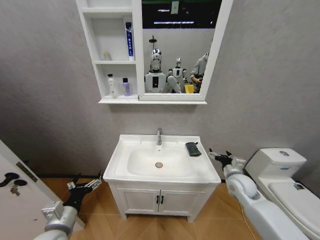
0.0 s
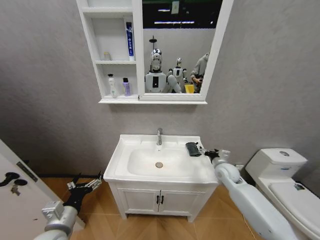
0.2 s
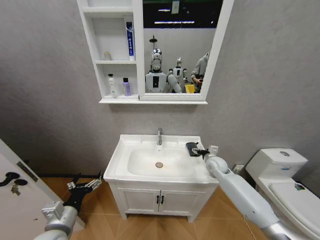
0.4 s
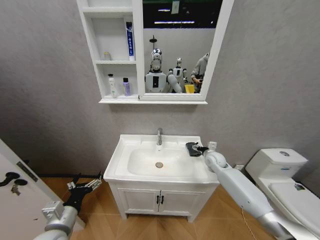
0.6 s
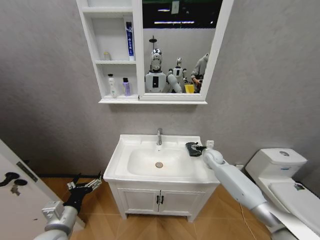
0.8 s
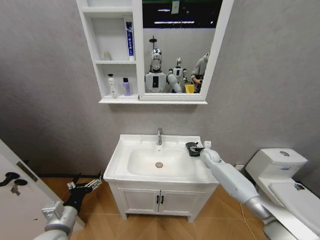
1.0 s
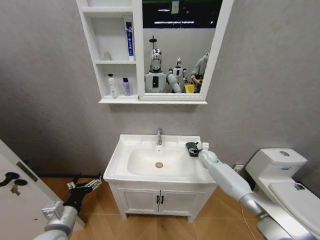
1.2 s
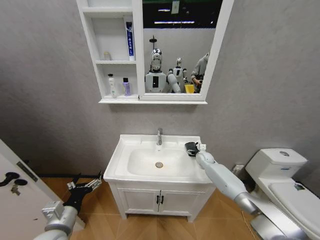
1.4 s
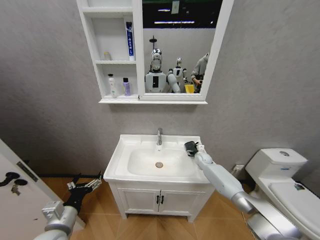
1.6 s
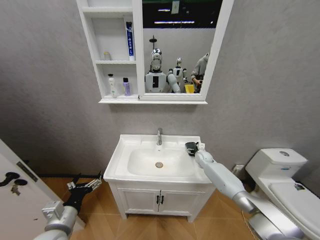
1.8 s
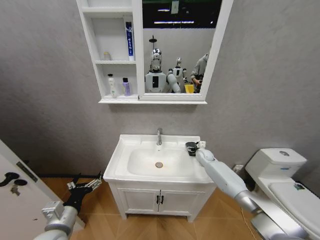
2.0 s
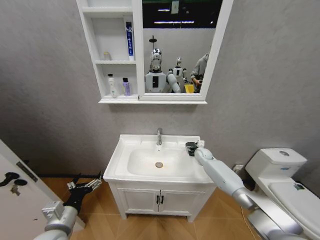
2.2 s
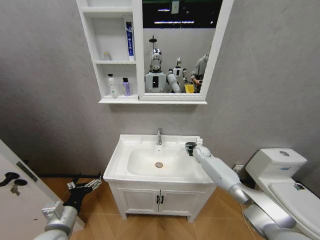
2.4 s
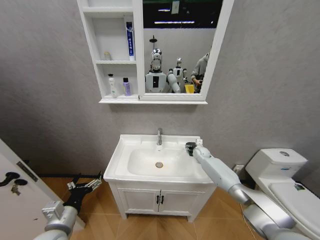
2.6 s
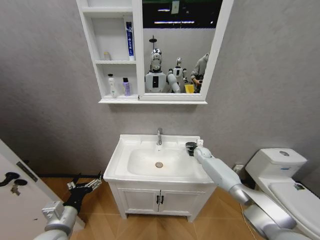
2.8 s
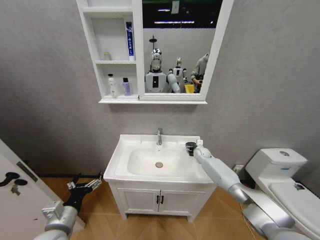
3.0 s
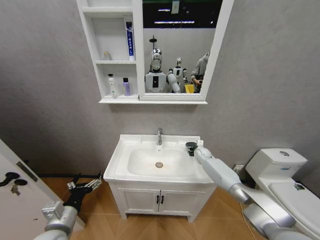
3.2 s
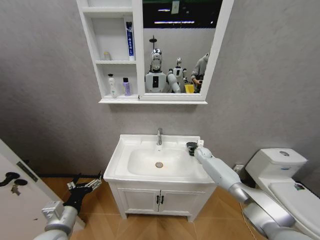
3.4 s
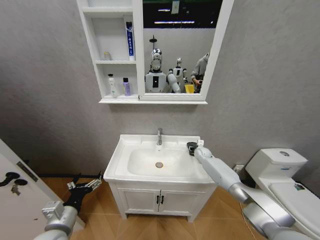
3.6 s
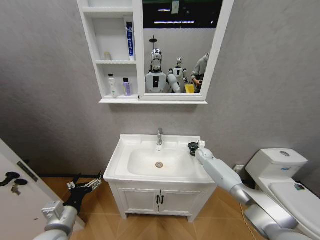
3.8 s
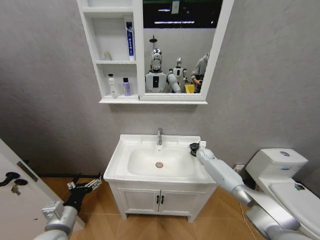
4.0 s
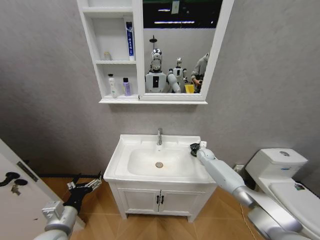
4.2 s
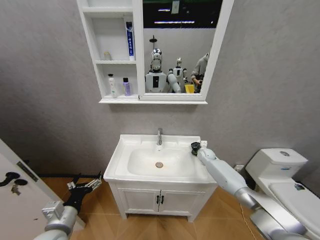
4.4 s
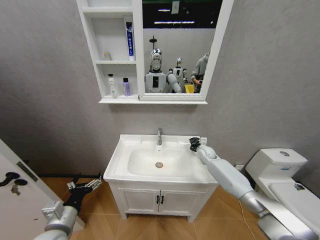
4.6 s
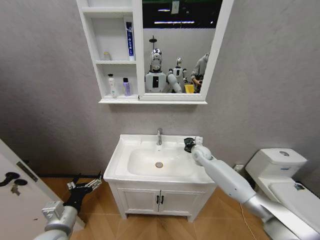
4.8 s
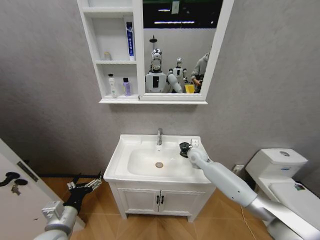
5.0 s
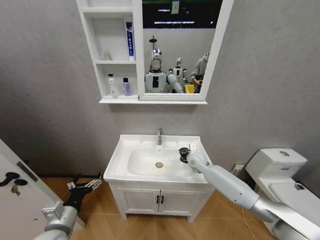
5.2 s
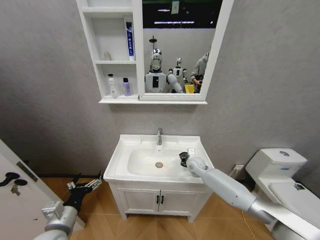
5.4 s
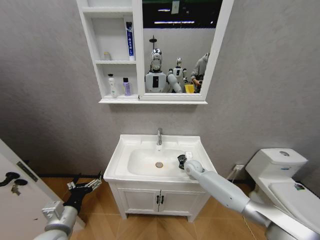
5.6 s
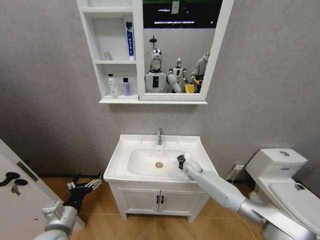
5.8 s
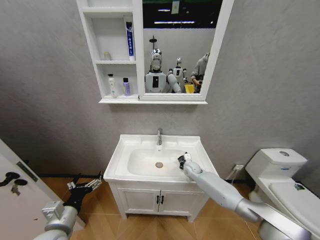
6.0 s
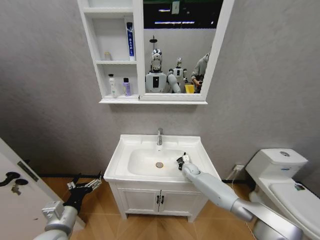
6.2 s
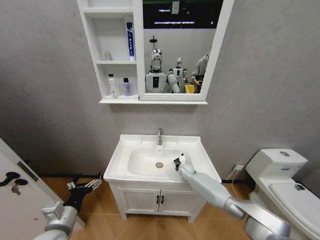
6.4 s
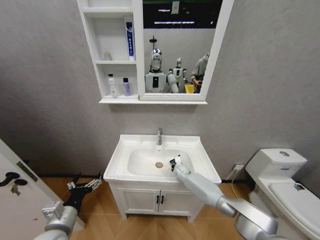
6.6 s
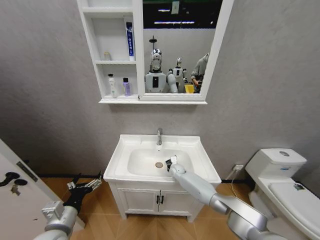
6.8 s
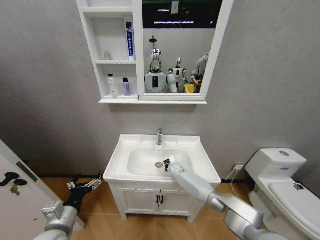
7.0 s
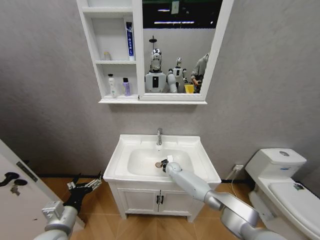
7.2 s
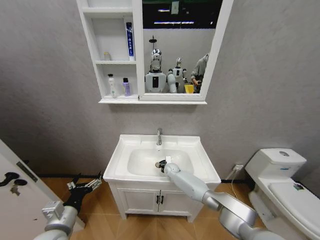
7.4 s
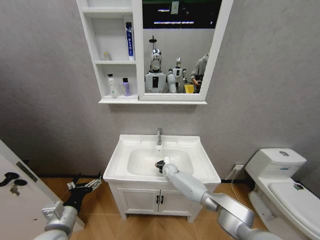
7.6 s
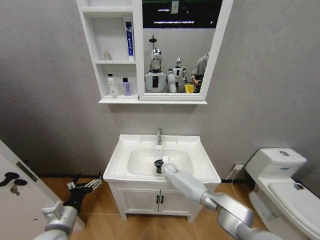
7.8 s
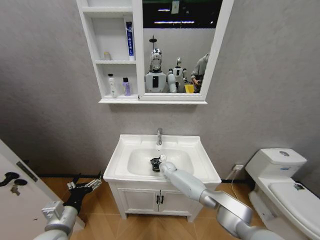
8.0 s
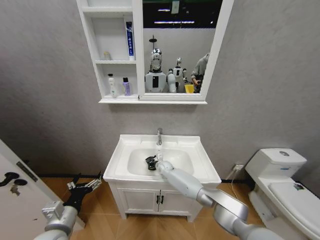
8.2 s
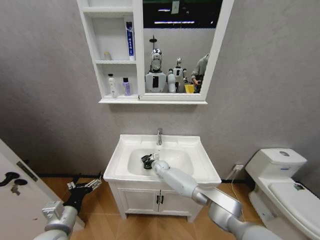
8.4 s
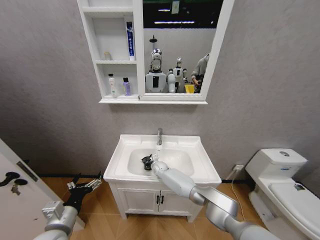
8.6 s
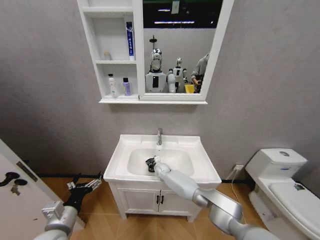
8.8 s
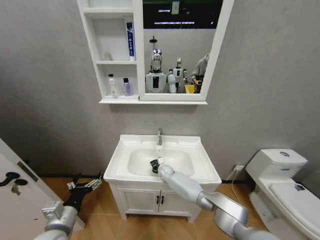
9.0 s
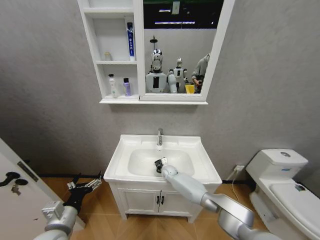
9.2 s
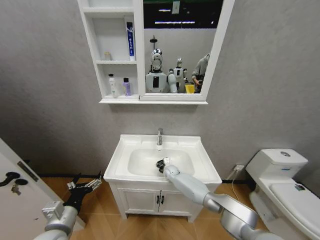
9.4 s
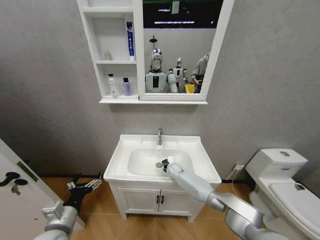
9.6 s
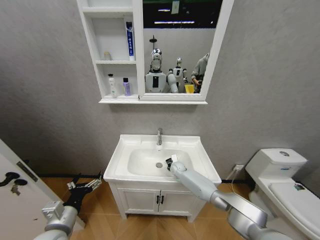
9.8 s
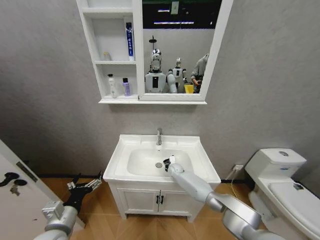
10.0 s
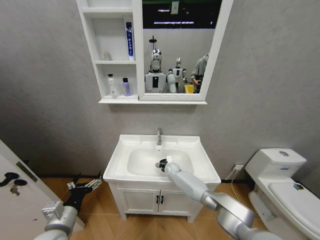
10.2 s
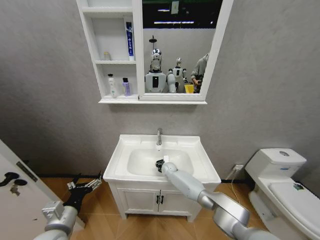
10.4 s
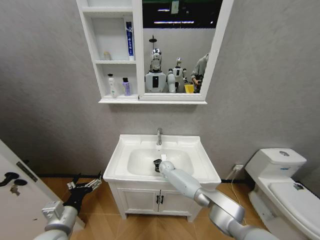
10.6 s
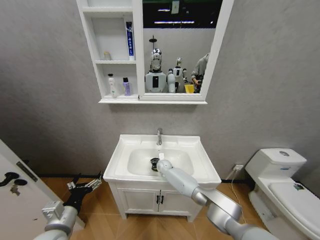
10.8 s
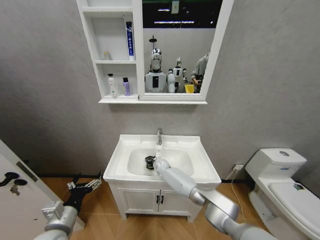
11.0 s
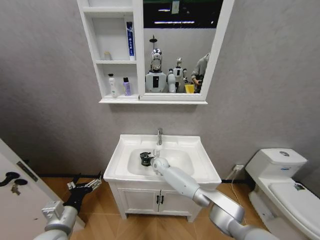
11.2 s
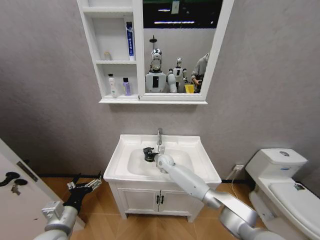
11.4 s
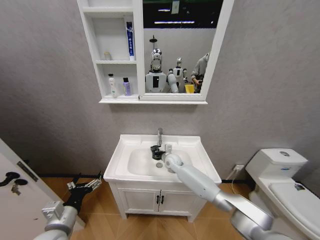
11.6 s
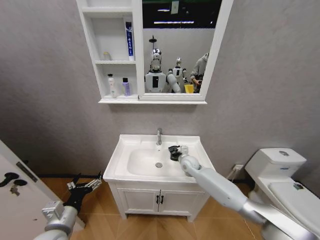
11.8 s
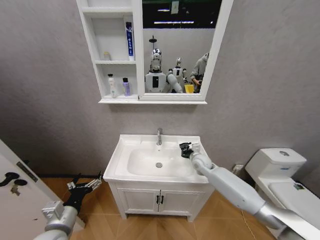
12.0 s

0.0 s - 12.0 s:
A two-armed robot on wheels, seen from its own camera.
Task of the whole recording: Move facial cleanser and shampoo from washbasin to cabinet, then wipe washbasin with towel.
0.0 s - 1.6 s: The right gripper goes some 25 cm forward and downward.
1.6 s - 3.0 s: The grippers stay close to where they were, moving slightly.
3.0 s - 4.4 s: The right gripper closes.
4.4 s - 6.0 s: The right gripper is displaced to the left, backward and downward by some 15 cm.
6.0 s - 7.6 s: The right gripper goes approximately 15 cm to the left and downward.
9.0 s - 10.4 s: The right gripper reaches about 10 cm to the right, then returns.
10.4 s - 12.0 s: The right gripper travels to the right and upward by about 20 cm.

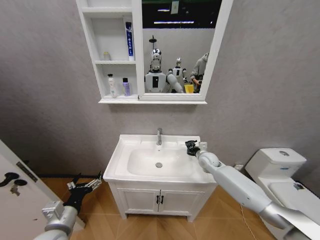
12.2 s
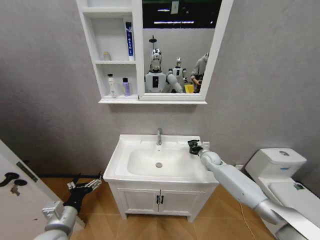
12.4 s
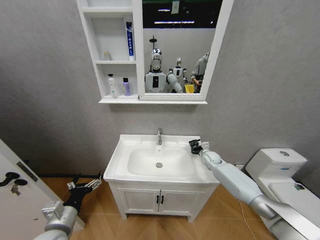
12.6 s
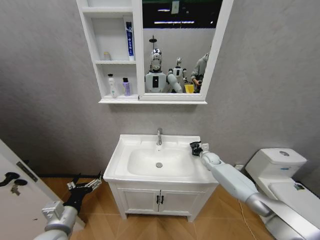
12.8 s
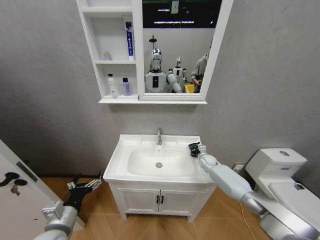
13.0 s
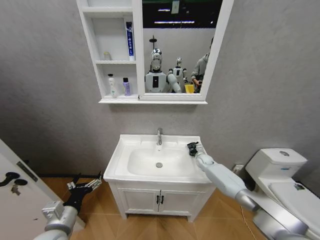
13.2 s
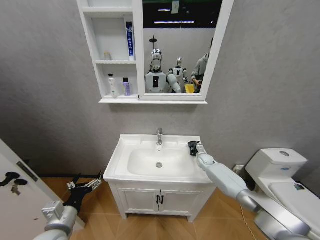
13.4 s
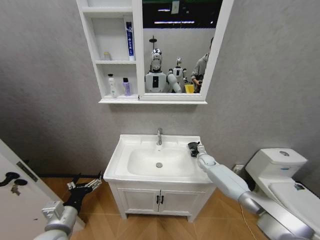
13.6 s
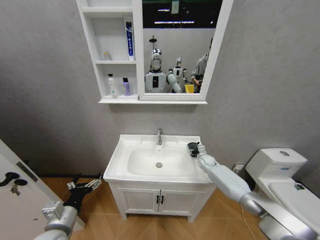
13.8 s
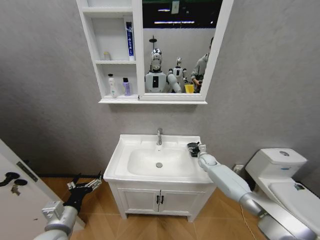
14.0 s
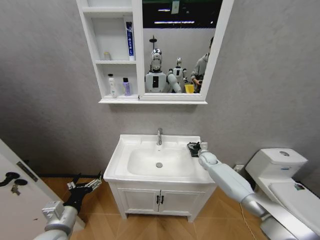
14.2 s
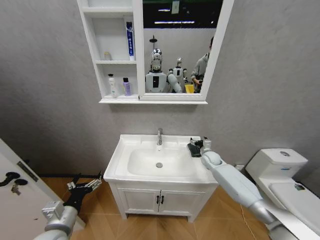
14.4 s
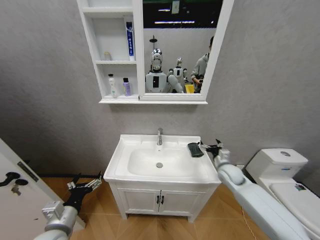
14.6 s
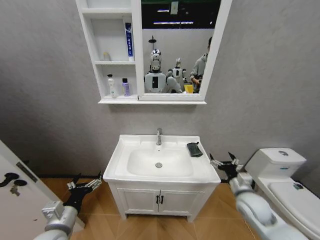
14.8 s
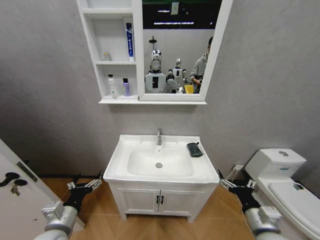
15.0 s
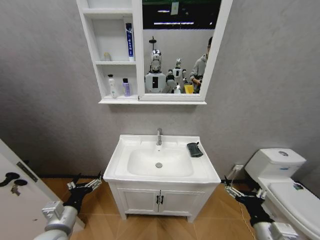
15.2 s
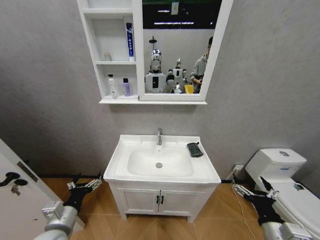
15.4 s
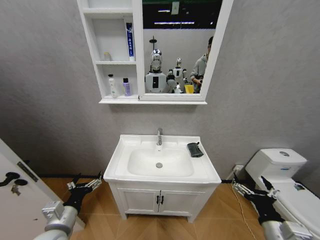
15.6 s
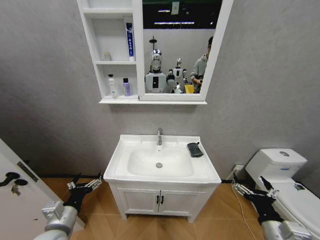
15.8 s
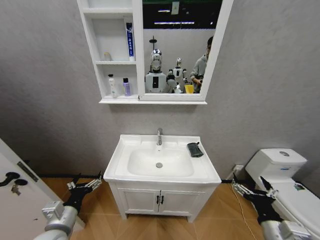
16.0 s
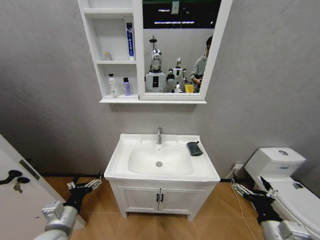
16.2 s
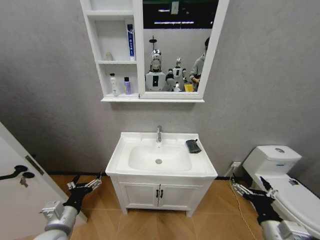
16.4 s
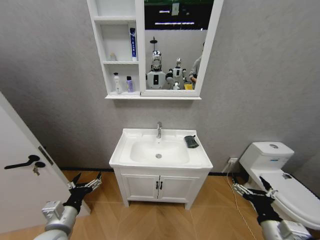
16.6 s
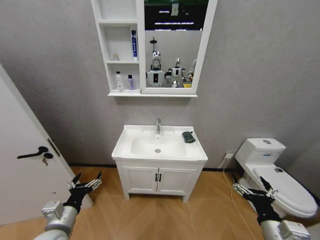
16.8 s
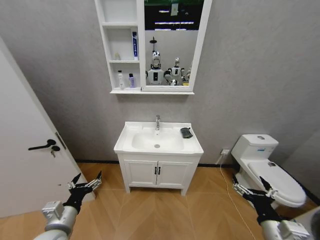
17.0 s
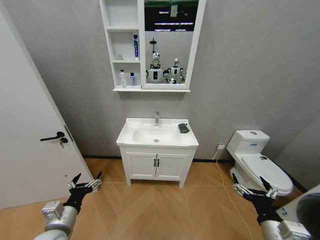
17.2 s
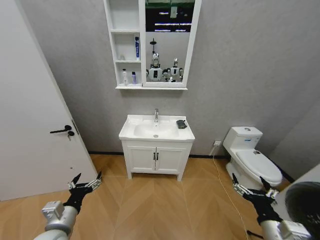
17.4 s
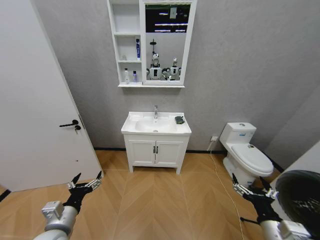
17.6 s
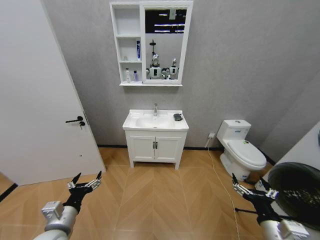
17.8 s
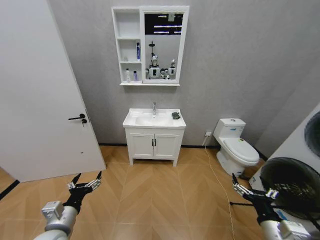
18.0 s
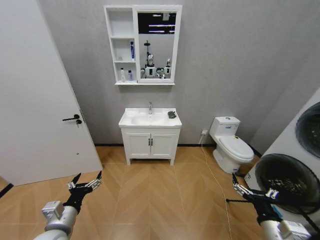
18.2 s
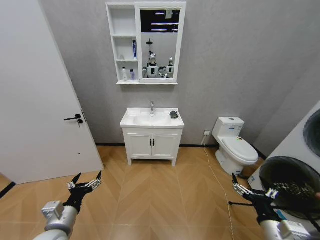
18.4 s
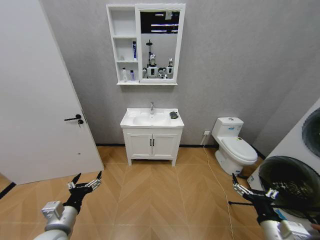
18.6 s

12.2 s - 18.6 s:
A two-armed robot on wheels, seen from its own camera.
Task of the whole recording: Move facial cleanser and shampoo from washbasin to cabinet, then wipe washbasin with towel.
12.2 s - 13.8 s: The right gripper moves downward and forward, roughly 10 cm, and opens up.
13.8 s - 15.4 s: The right gripper moves backward, about 40 cm.
